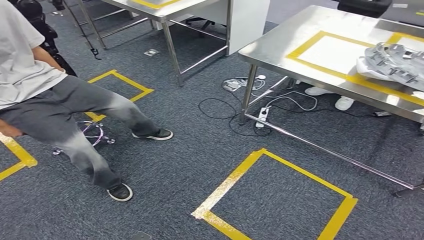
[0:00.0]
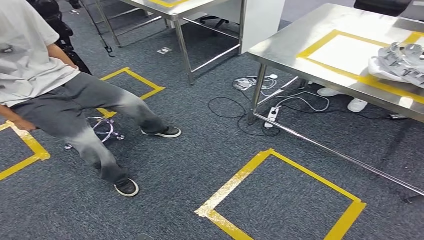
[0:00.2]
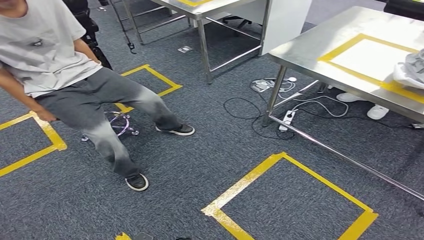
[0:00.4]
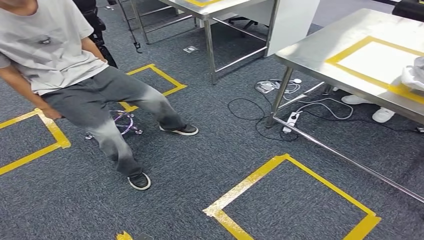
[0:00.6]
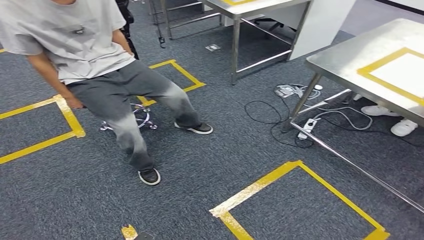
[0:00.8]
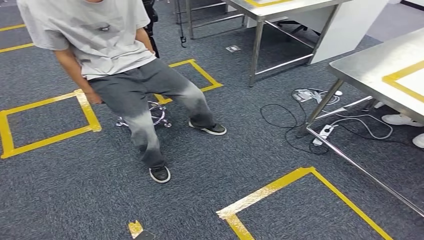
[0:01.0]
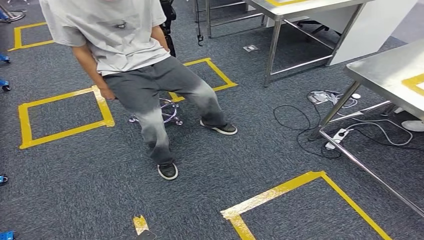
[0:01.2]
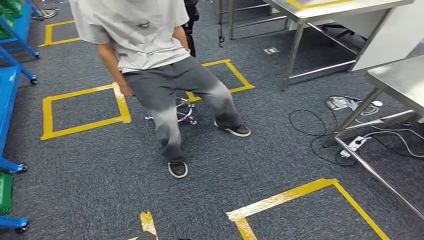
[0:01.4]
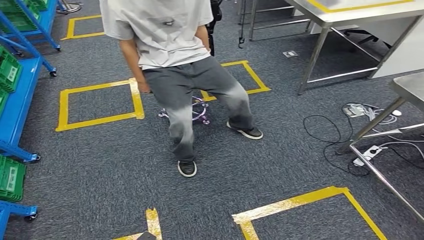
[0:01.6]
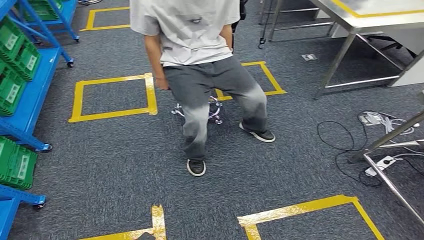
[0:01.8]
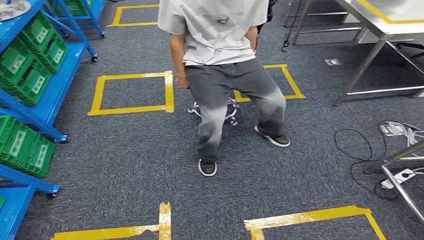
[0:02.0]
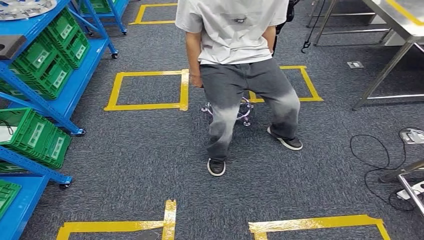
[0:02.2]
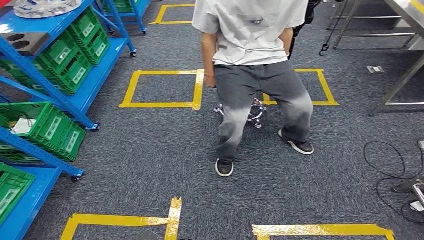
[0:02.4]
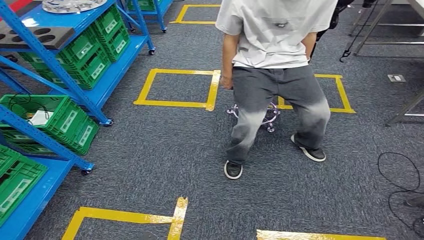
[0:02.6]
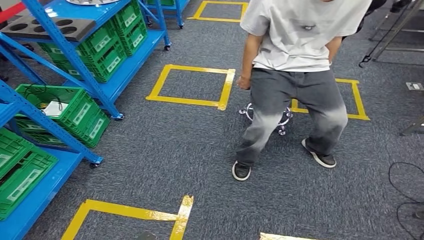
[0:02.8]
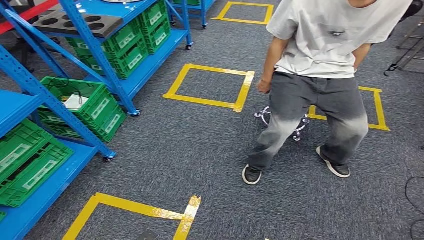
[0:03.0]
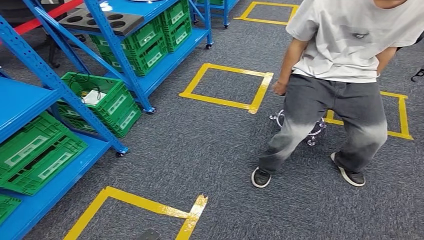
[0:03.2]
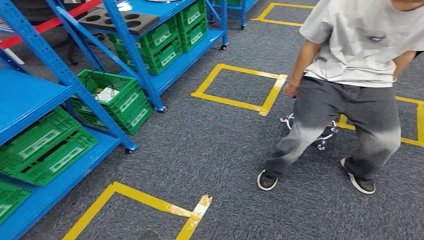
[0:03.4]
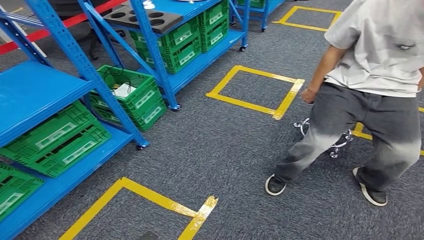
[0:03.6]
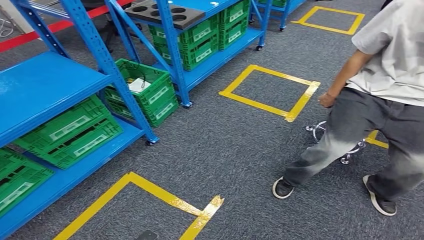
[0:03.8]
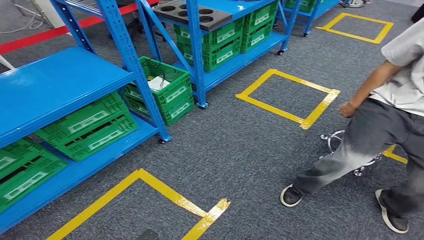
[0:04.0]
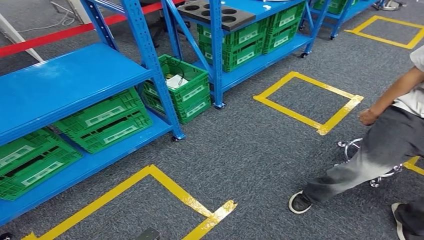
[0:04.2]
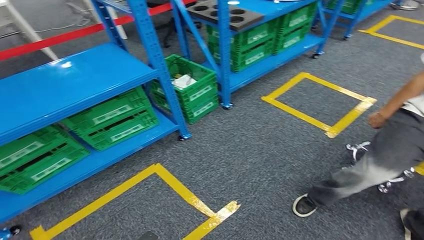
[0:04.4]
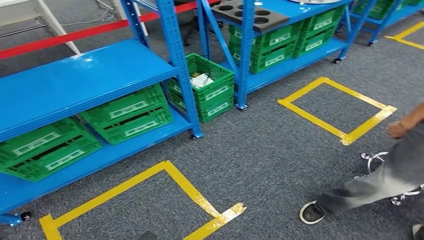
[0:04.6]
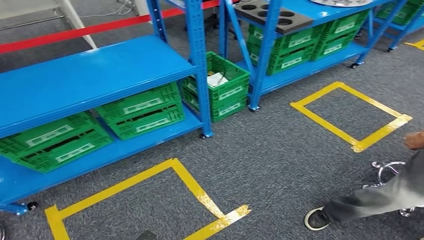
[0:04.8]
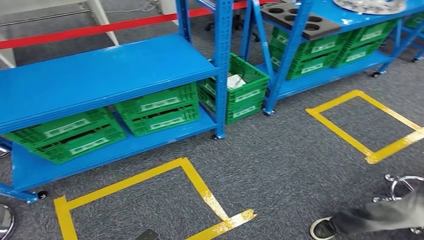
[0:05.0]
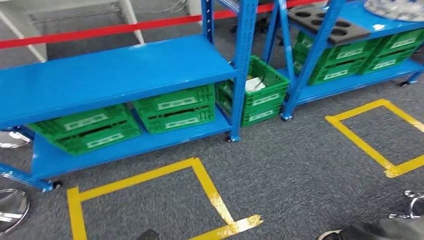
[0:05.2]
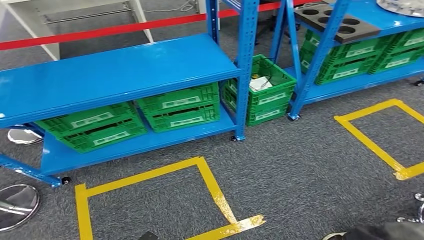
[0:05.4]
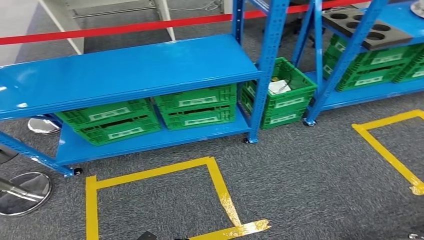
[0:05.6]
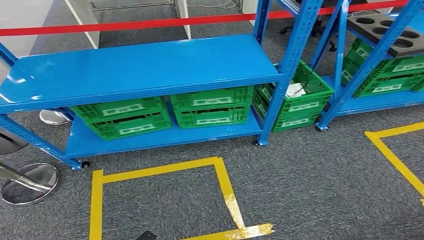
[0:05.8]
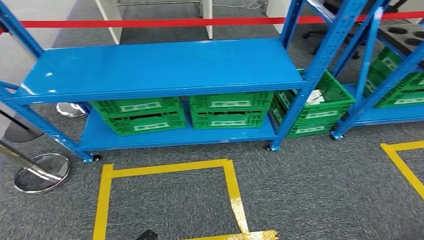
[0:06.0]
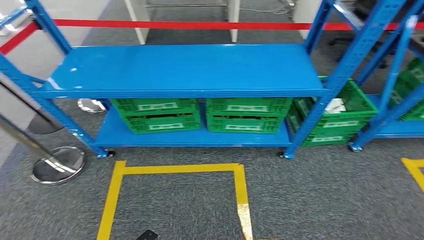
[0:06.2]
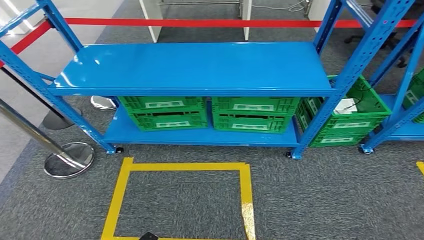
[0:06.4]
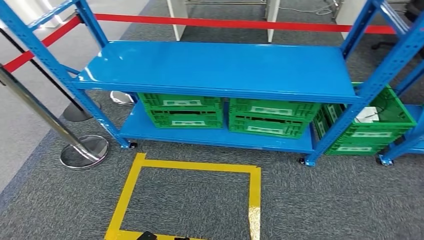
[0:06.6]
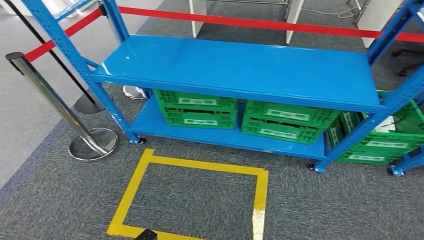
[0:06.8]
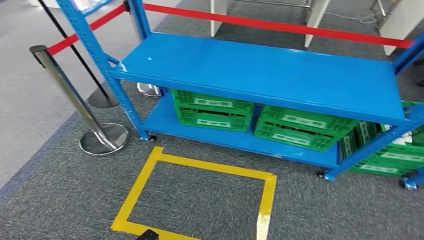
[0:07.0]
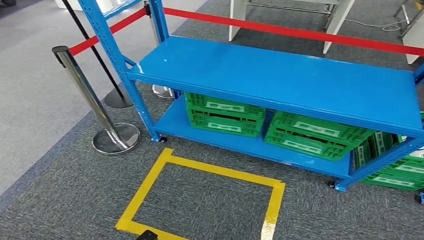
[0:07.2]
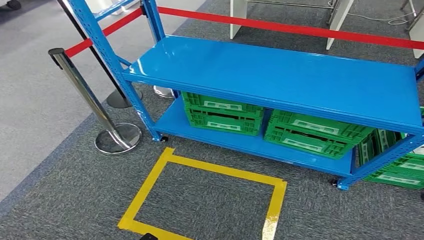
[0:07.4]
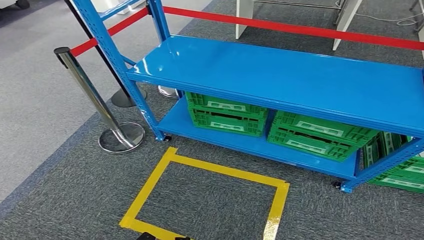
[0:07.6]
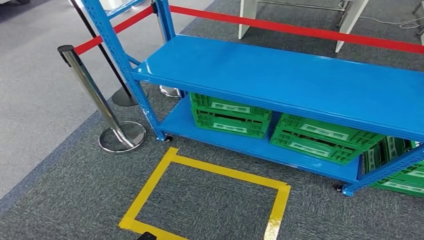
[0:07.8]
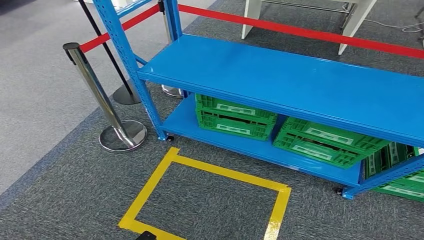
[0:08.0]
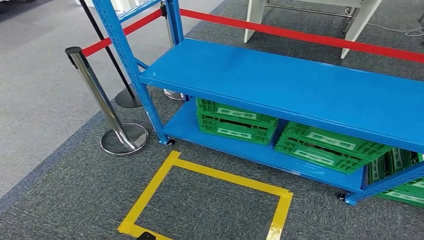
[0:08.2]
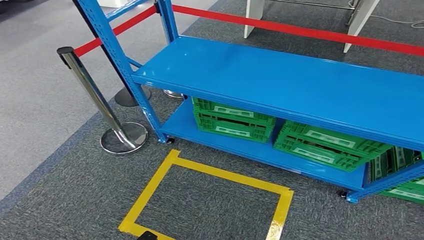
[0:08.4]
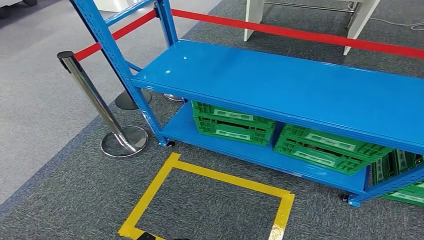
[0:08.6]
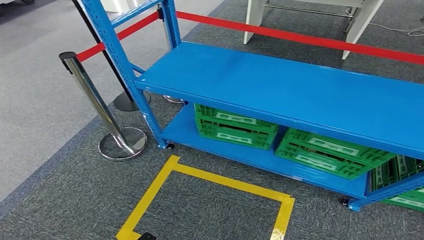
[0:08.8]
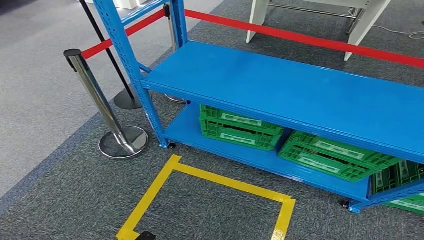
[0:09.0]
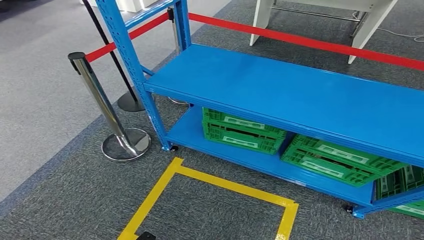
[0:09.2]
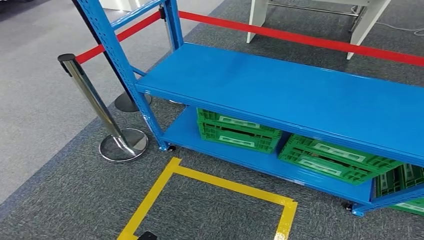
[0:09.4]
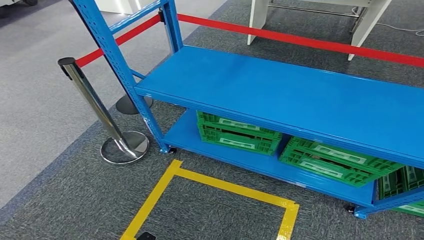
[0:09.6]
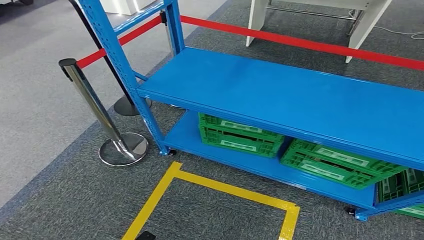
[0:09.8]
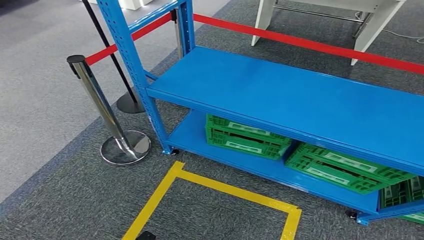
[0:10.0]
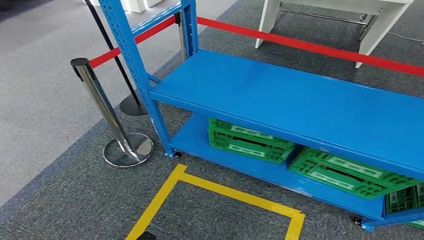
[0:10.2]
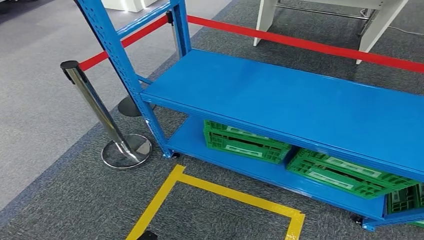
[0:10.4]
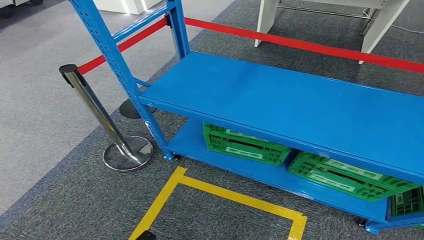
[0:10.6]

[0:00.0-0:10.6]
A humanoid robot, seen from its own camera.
Step, 0:00.0 to 0:10.6: Return to the initial position at the workbench.
